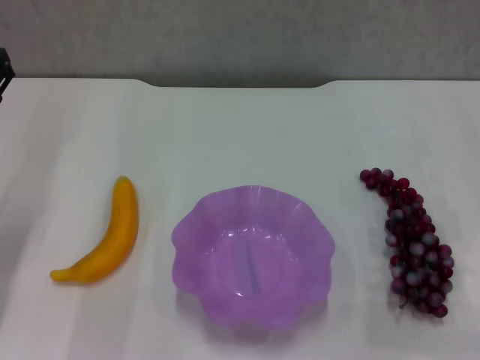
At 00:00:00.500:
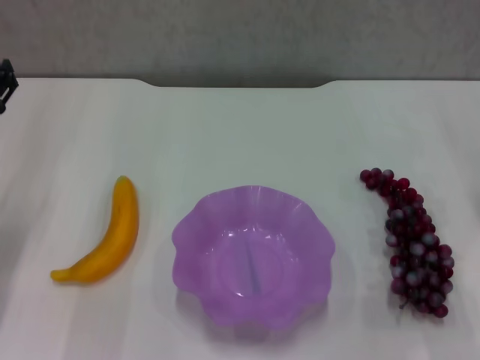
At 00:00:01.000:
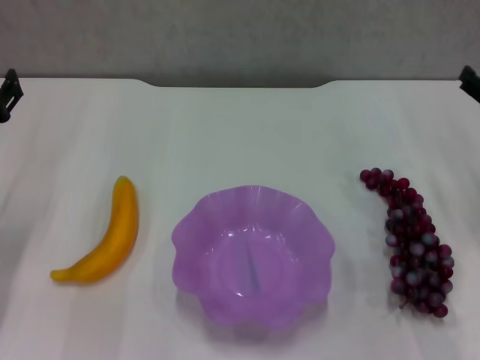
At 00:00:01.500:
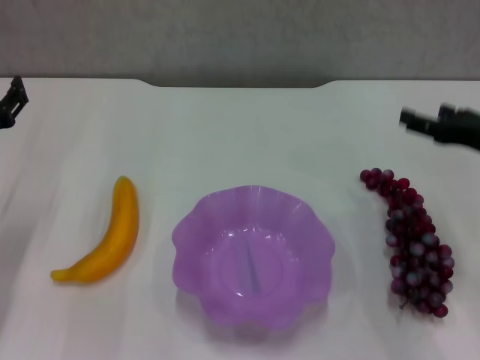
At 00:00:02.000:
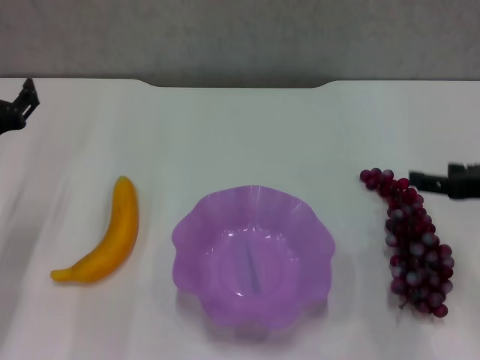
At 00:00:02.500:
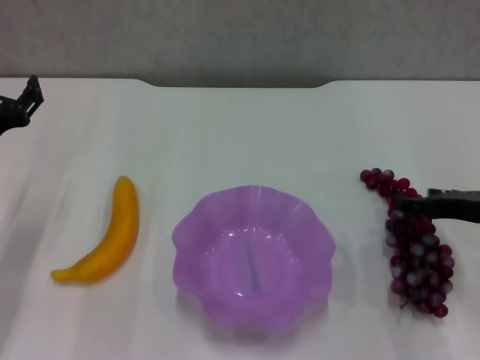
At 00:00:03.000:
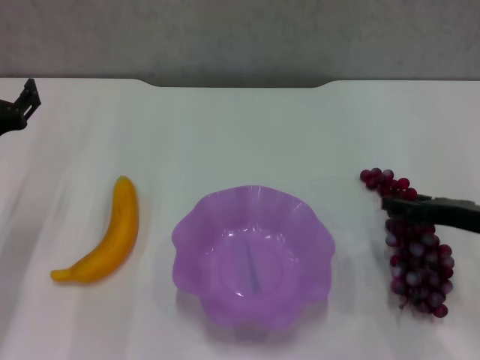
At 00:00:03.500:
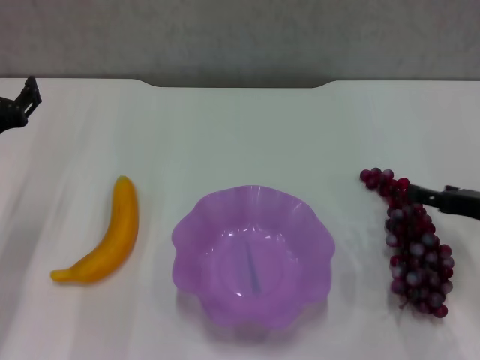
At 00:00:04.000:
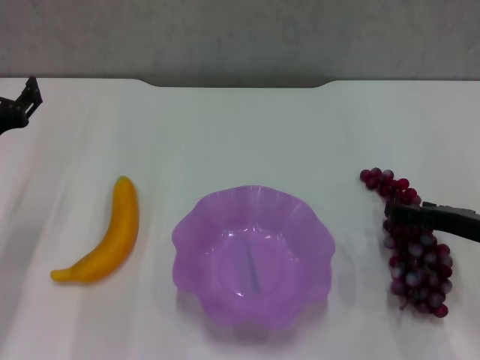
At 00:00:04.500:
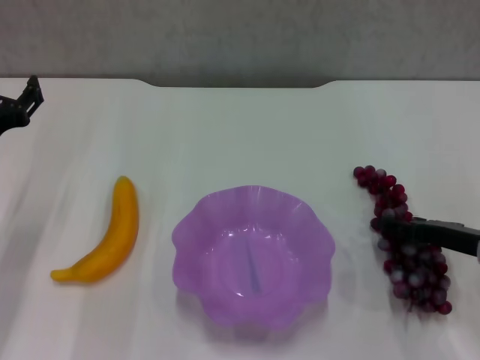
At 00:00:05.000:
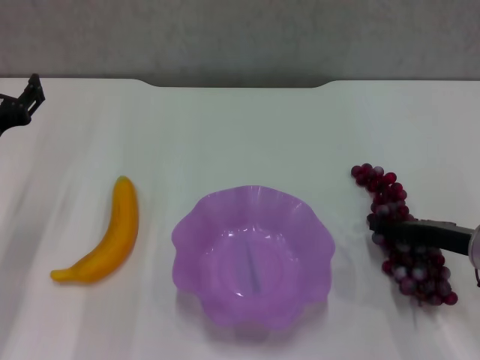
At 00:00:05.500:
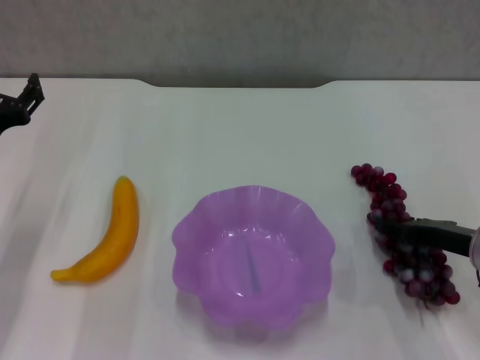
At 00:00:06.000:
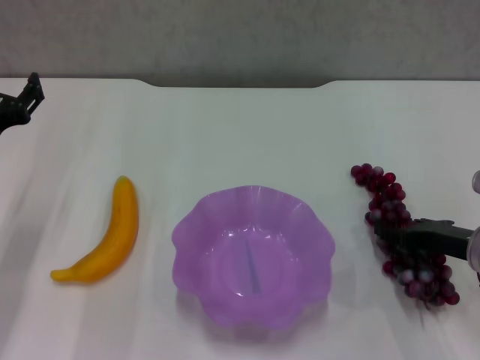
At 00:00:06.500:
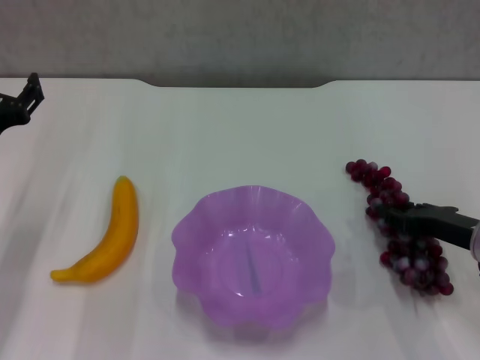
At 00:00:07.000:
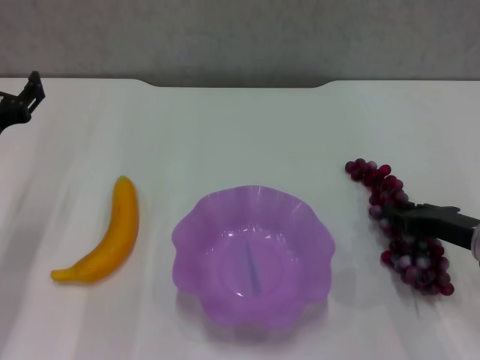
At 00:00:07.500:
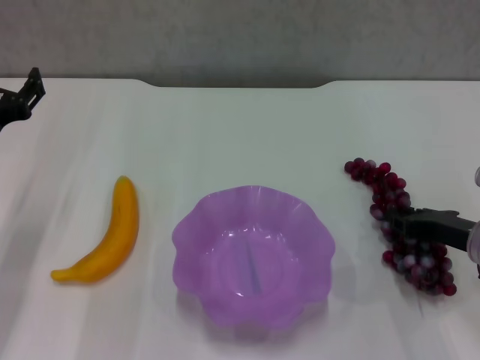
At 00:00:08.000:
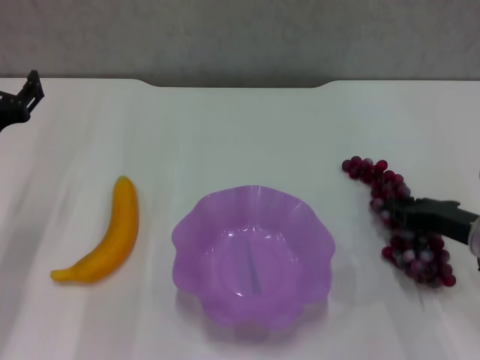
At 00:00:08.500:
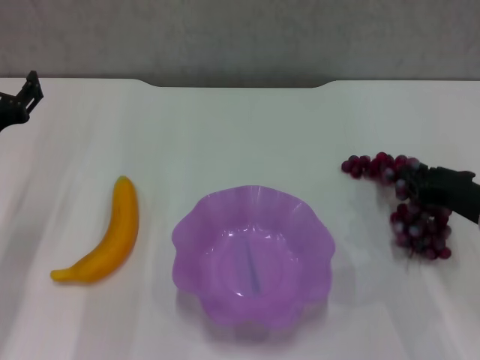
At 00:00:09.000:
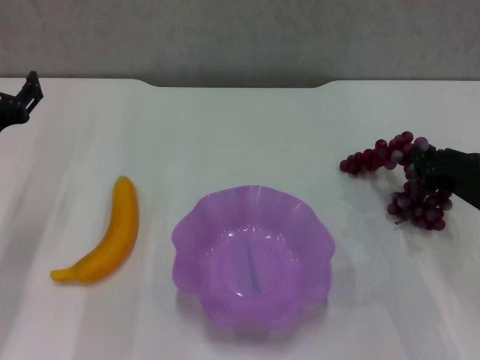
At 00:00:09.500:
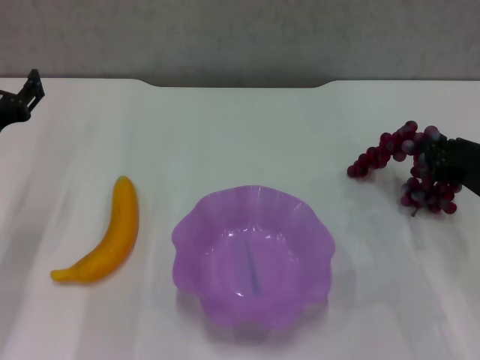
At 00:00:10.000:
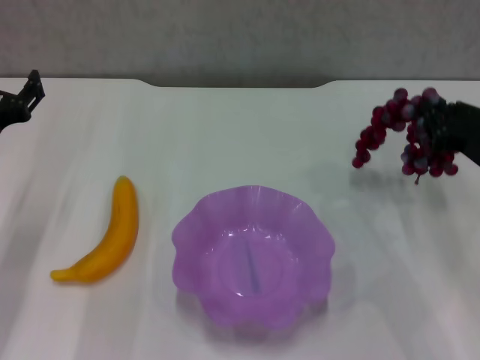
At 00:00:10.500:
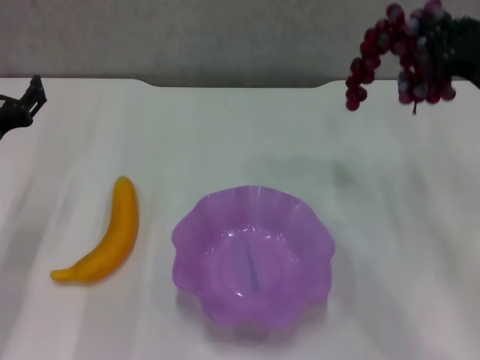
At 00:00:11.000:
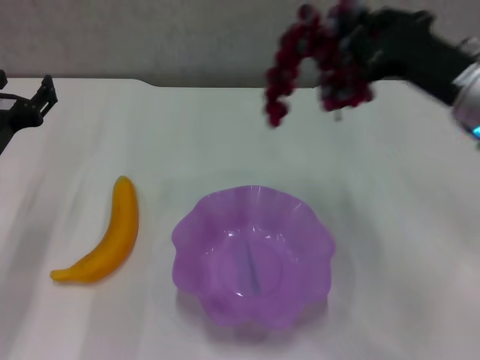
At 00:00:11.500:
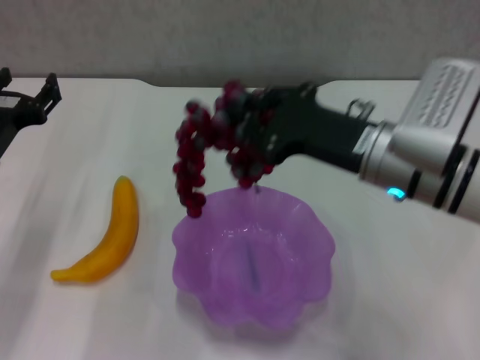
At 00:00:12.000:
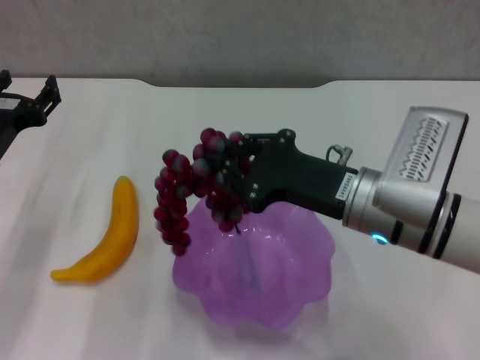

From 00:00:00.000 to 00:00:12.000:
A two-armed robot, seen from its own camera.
Step, from 00:00:00.000 to 00:00:06.000: Grasp the grape with right gripper.
From 00:00:00.000 to 00:00:02.000: The right gripper shifts by approximately 5 cm.
From 00:00:02.000 to 00:00:04.000: The right gripper goes approximately 10 cm downward.
From 00:00:04.000 to 00:00:06.000: There are only small adjustments of the grippers.
From 00:00:06.000 to 00:00:08.000: The right gripper closes.
From 00:00:08.000 to 00:00:10.000: The right gripper is displaced upward by some 5 cm.
From 00:00:10.000 to 00:00:12.000: The right gripper heads to the left, covering roughly 15 cm.

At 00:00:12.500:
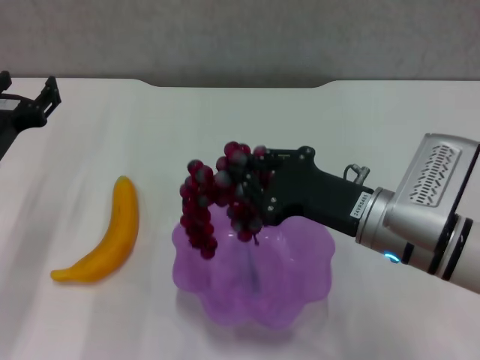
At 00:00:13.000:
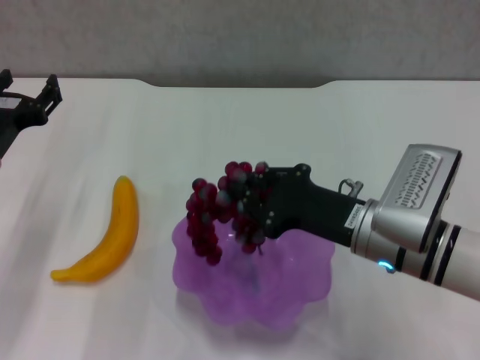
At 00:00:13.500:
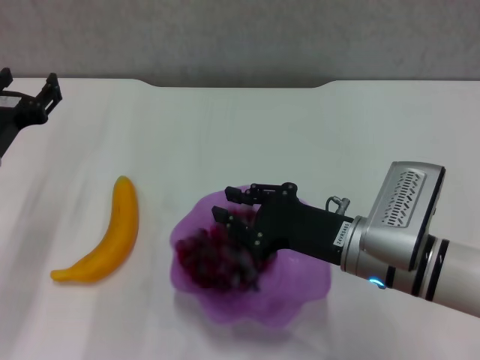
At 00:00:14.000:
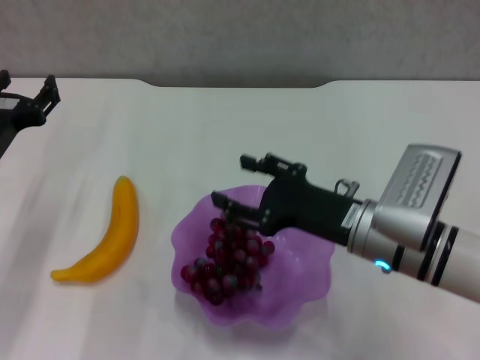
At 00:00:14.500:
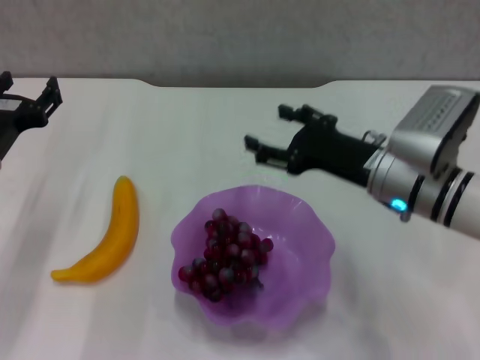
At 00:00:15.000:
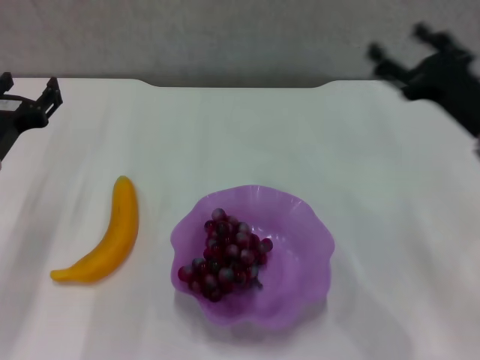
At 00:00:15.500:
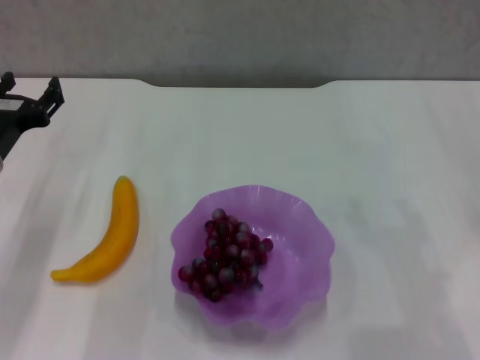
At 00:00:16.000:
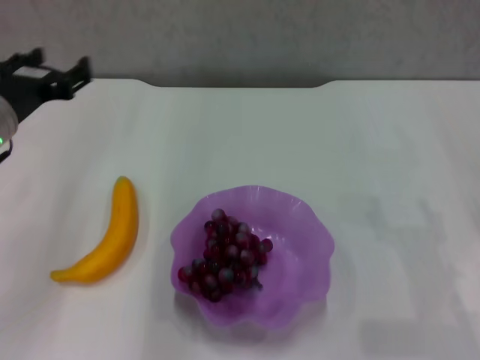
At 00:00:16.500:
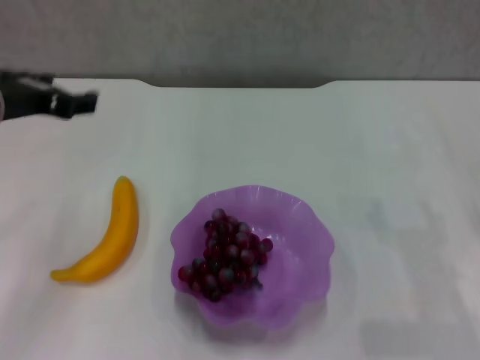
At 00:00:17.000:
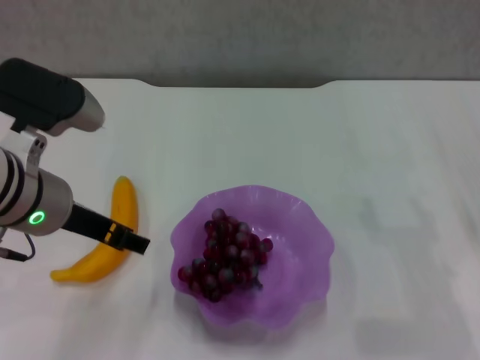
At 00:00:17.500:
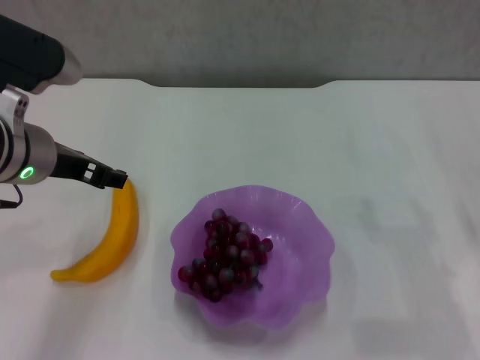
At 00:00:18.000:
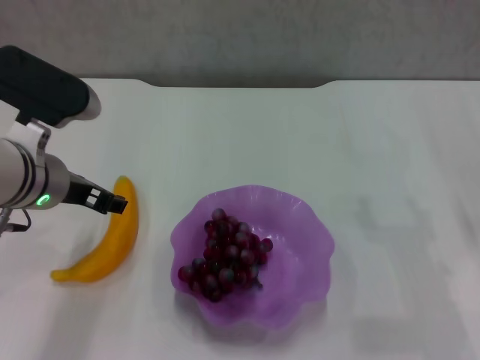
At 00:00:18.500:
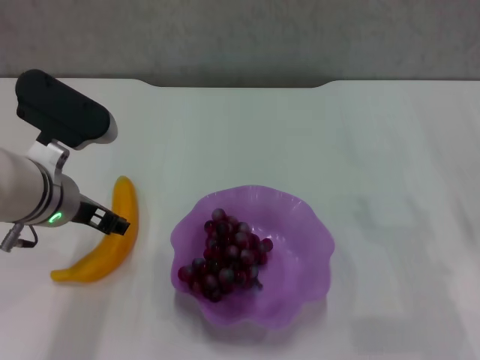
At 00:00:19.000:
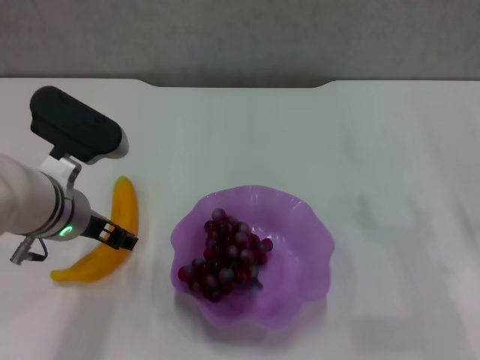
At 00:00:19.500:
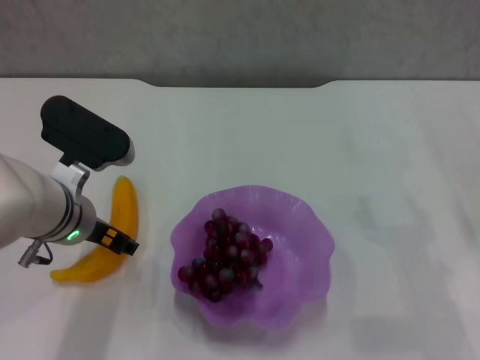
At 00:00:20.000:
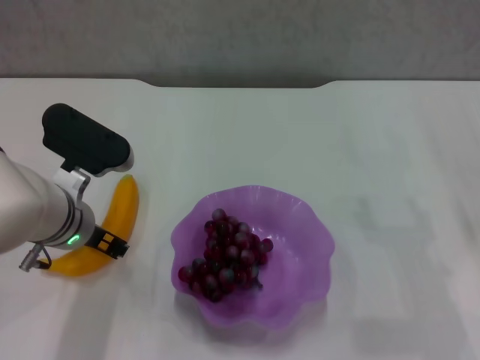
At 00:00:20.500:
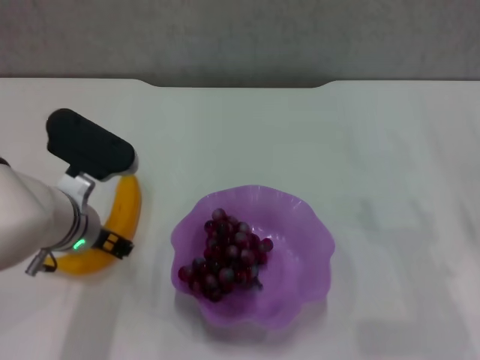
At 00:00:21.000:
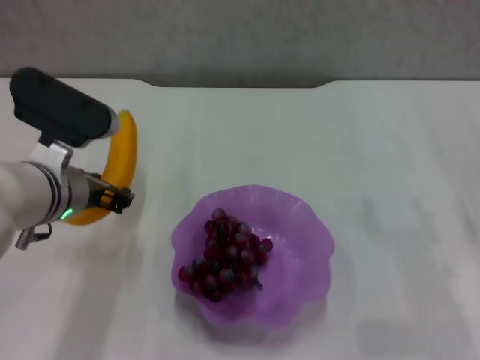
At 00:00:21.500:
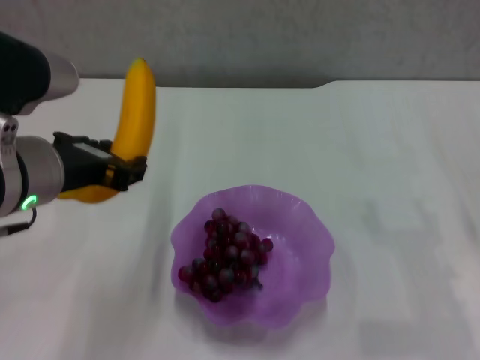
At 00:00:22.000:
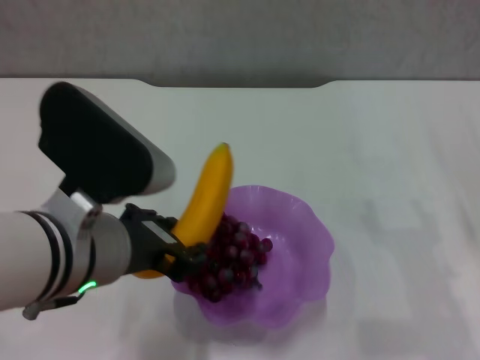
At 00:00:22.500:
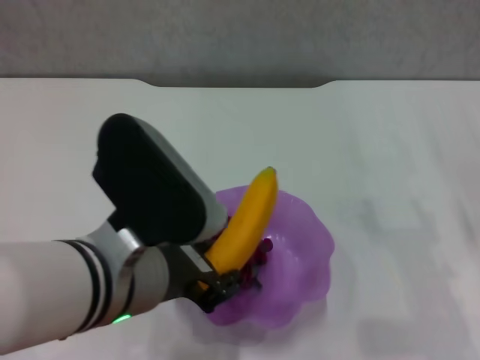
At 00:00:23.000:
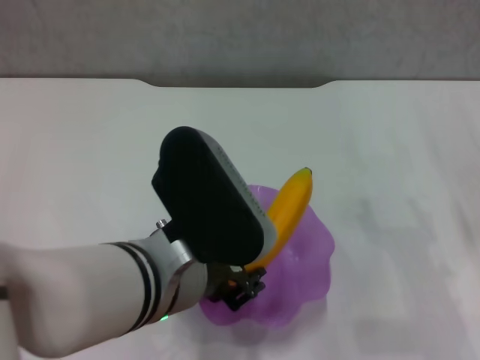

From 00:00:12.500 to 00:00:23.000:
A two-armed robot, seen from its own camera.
Step, from 00:00:14.500 to 00:00:20.000: Grasp the banana with left gripper.
From 00:00:12.500 to 00:00:14.500: The right gripper goes about 5 cm forward, and opens.
From 00:00:14.500 to 00:00:16.500: The left gripper travels upward by approximately 10 cm. Meanwhile the right gripper shifts some 15 cm to the right.
From 00:00:16.500 to 00:00:19.000: The left gripper heads downward and to the right, covering roughly 10 cm.
From 00:00:19.000 to 00:00:21.000: The left gripper closes its fingers.
From 00:00:21.000 to 00:00:23.000: The left gripper moves backward and to the right, approximately 15 cm.

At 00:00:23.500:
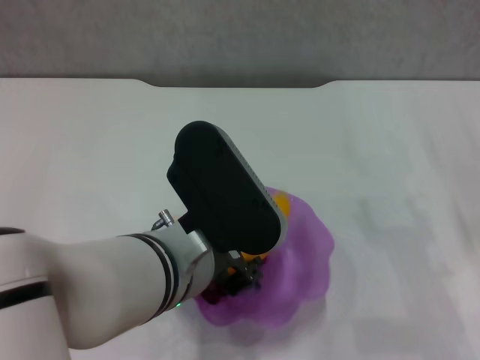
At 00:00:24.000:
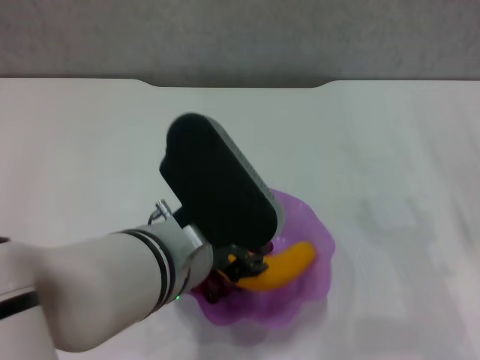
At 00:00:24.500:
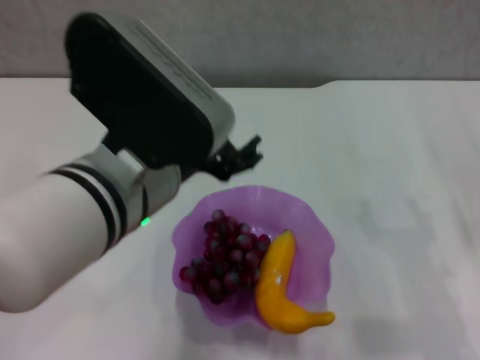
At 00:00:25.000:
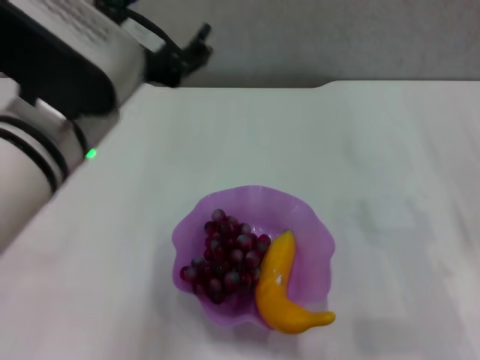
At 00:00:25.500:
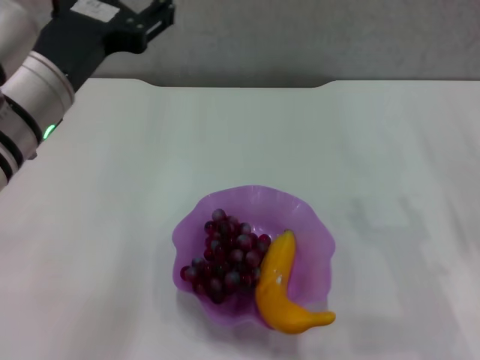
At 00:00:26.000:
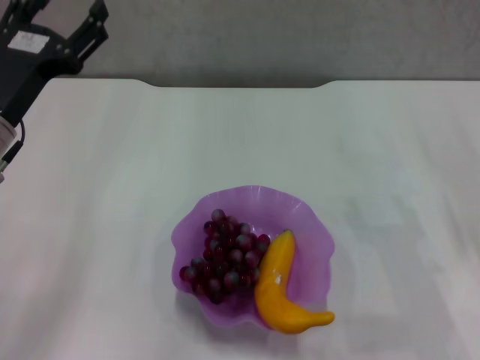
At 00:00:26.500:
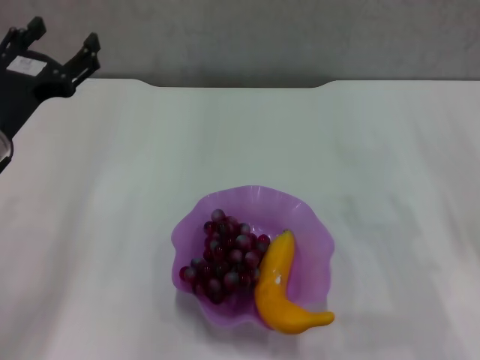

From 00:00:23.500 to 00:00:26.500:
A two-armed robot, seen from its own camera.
From 00:00:23.500 to 00:00:25.000: The left gripper is displaced to the left and upward by about 10 cm, and opens.
From 00:00:25.000 to 00:00:26.500: The left gripper moves to the left, downward and forward, roughly 15 cm.
